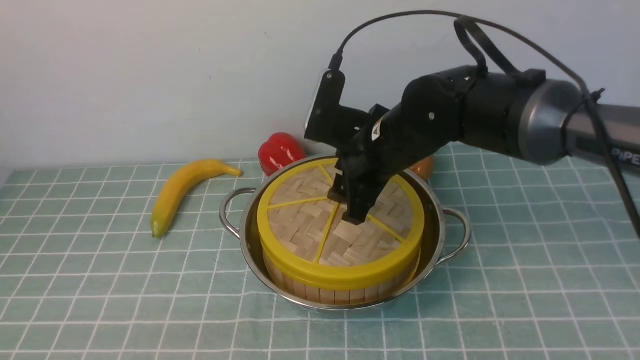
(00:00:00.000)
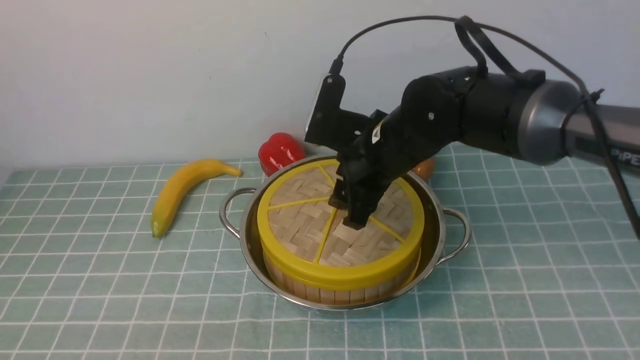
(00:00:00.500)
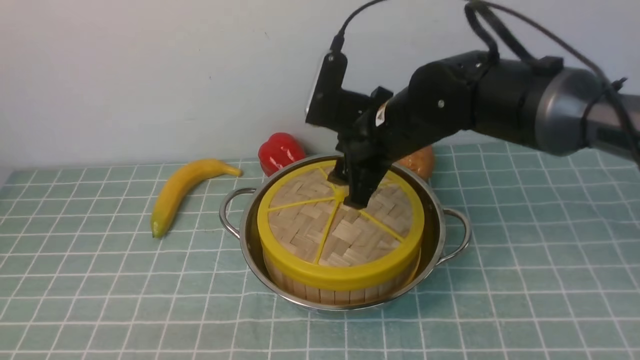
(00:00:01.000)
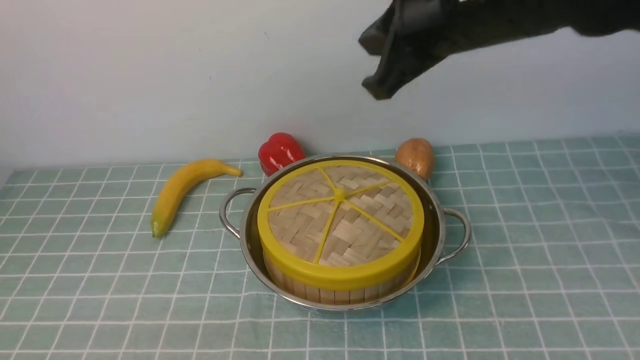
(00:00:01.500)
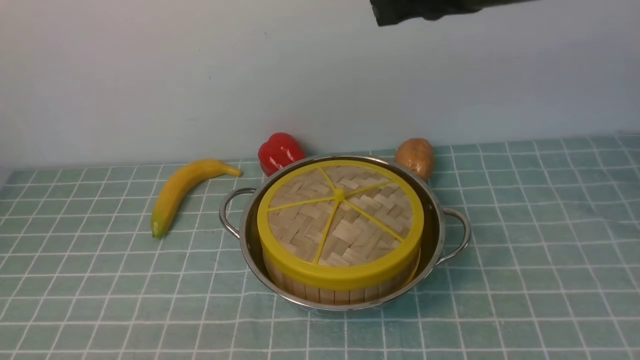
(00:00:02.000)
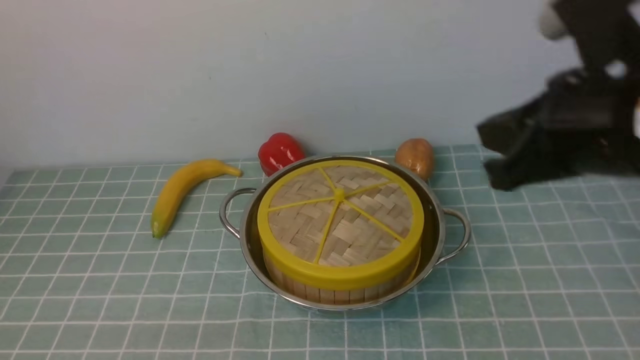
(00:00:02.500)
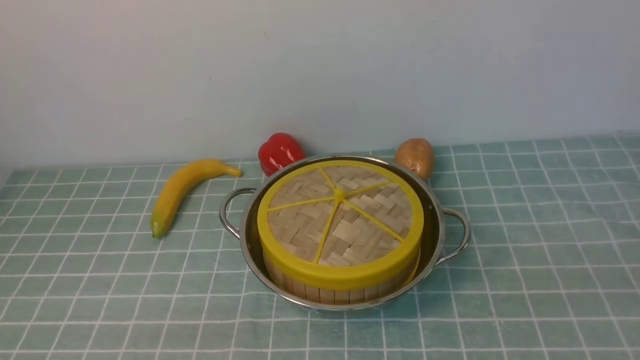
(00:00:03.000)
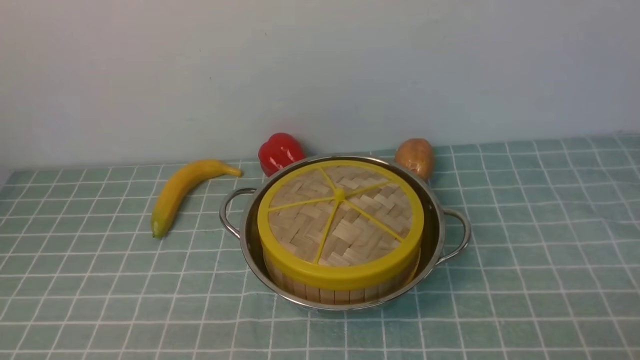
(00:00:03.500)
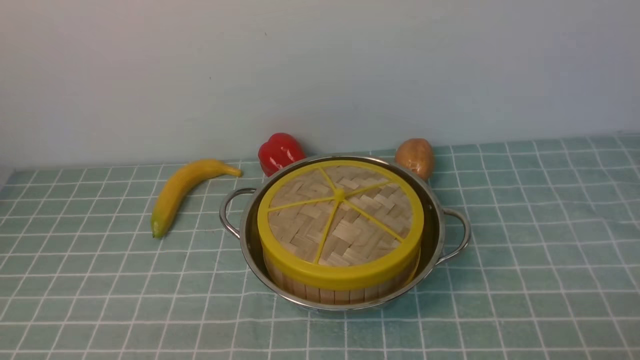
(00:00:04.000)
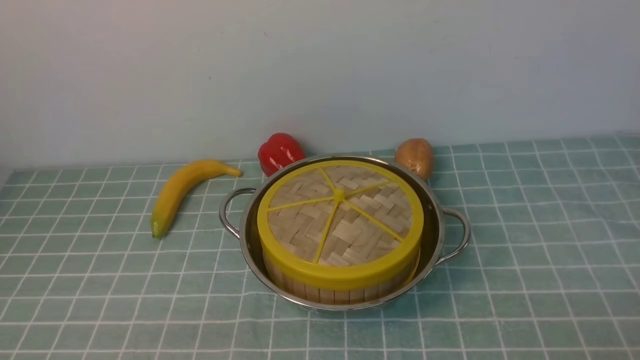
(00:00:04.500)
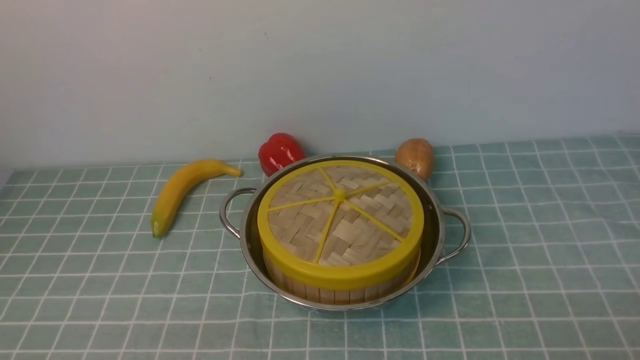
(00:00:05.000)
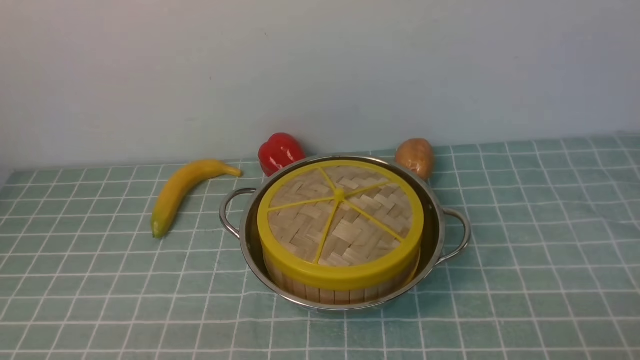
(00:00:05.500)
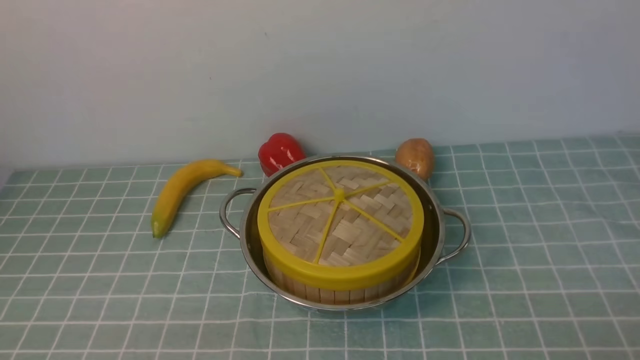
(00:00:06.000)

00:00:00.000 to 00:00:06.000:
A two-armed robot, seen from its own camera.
Task of the whole recording: place the steamer in the pot on the blue tablecloth, and put the lid on the steamer.
00:00:00.000 to 00:00:02.000: The right gripper travels upward and backward by about 20 cm, and closes up.
00:00:02.000 to 00:00:04.000: The right gripper shifts approximately 40 cm downward, backward and to the right, and opens.
00:00:04.000 to 00:00:06.000: Both grippers stay about where they are.

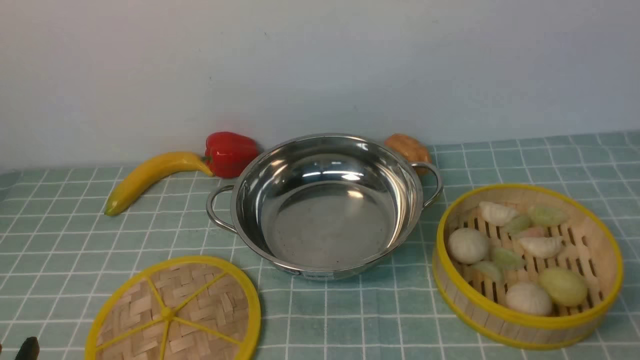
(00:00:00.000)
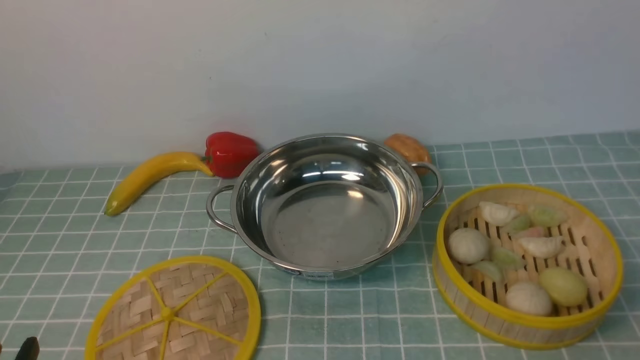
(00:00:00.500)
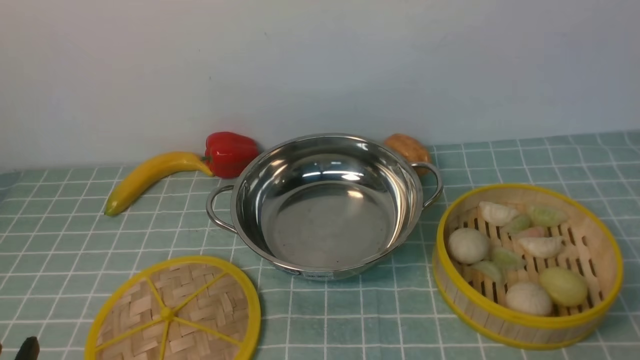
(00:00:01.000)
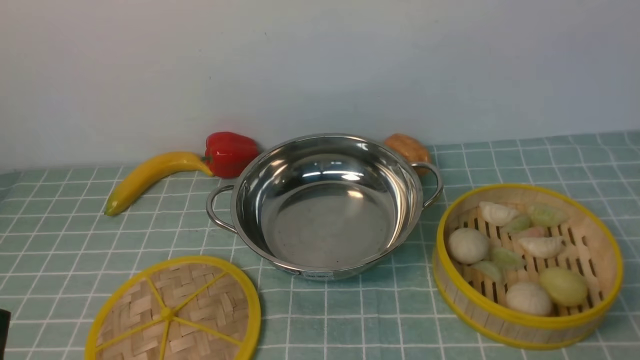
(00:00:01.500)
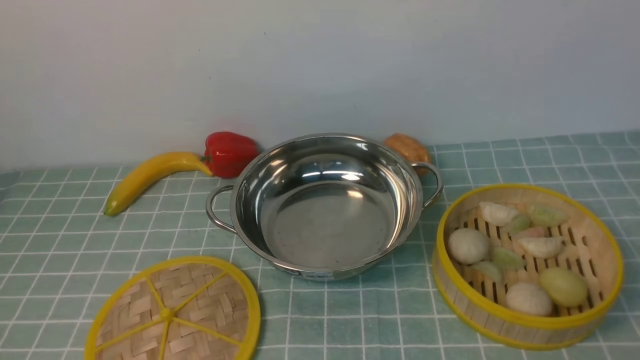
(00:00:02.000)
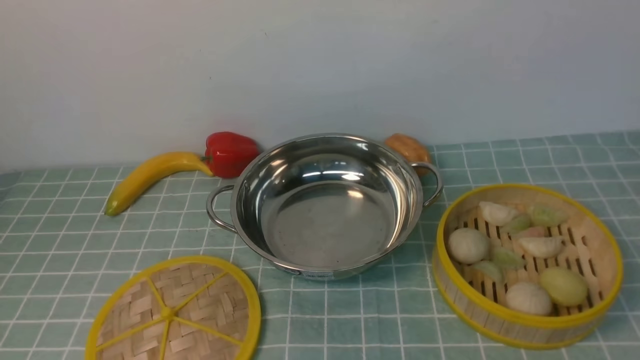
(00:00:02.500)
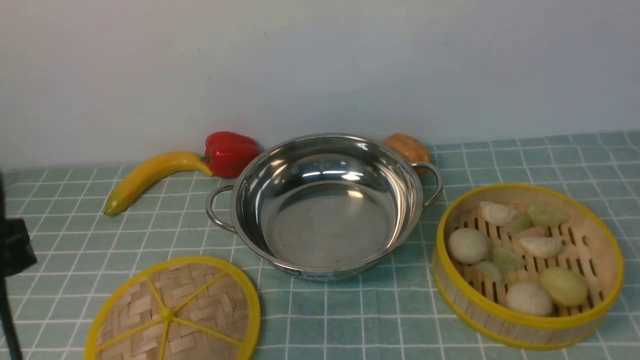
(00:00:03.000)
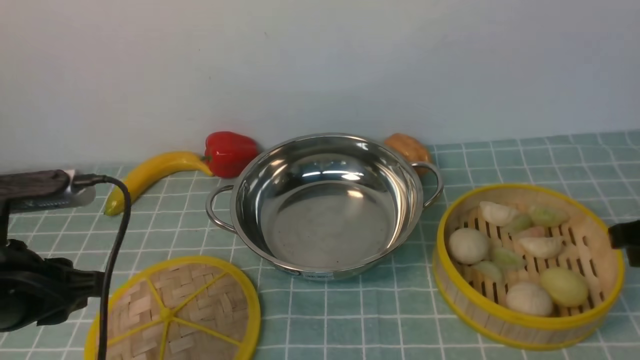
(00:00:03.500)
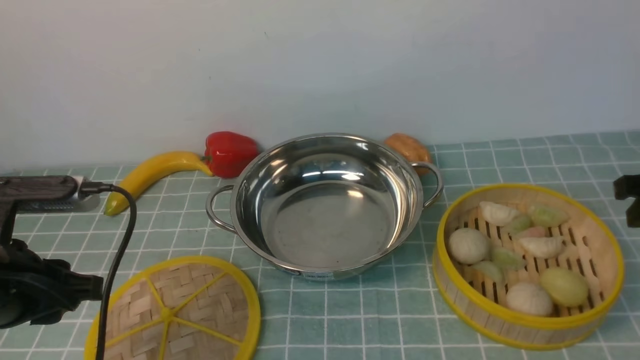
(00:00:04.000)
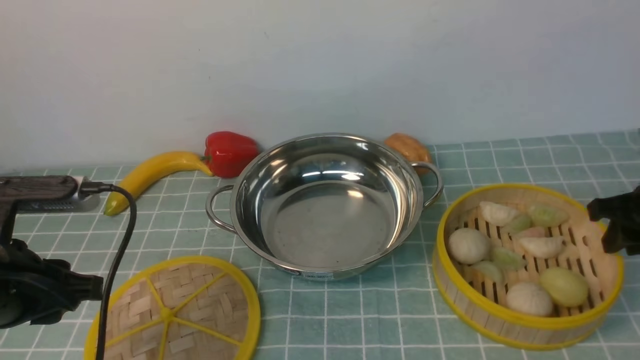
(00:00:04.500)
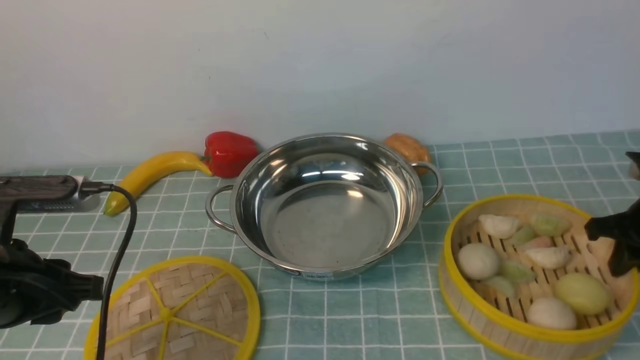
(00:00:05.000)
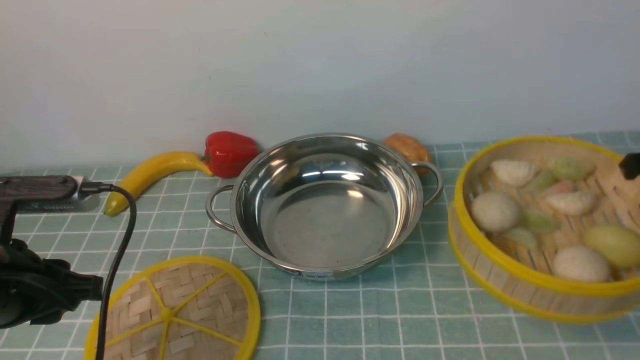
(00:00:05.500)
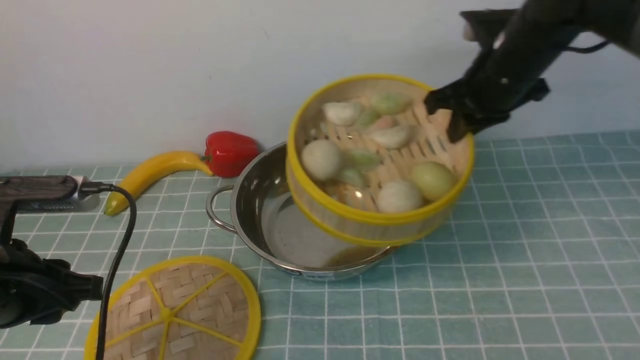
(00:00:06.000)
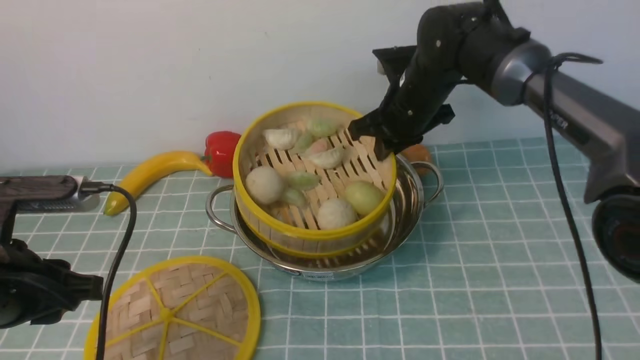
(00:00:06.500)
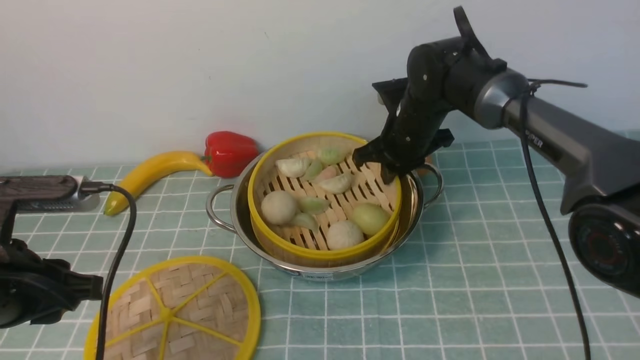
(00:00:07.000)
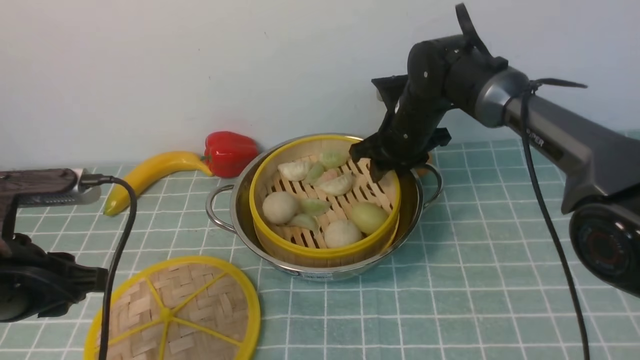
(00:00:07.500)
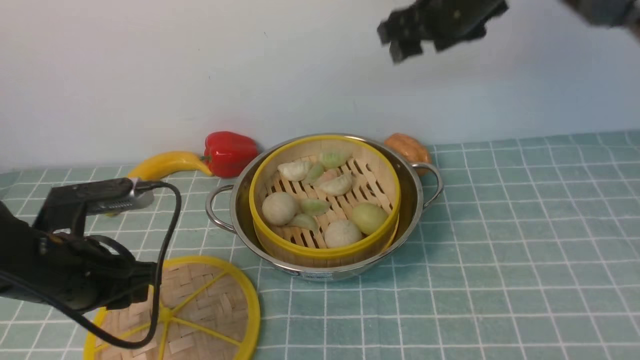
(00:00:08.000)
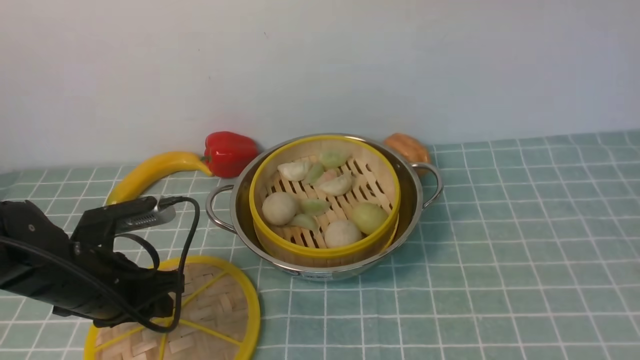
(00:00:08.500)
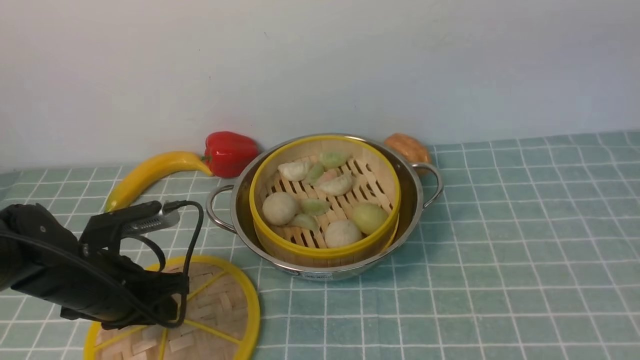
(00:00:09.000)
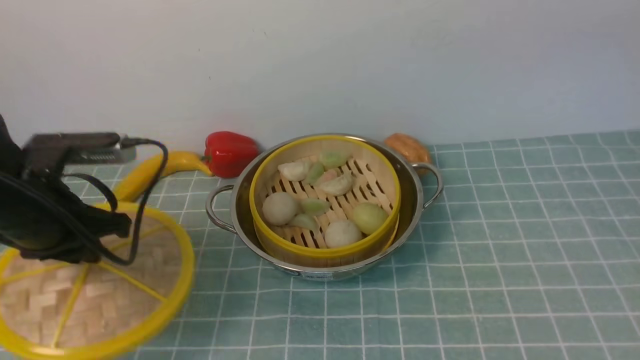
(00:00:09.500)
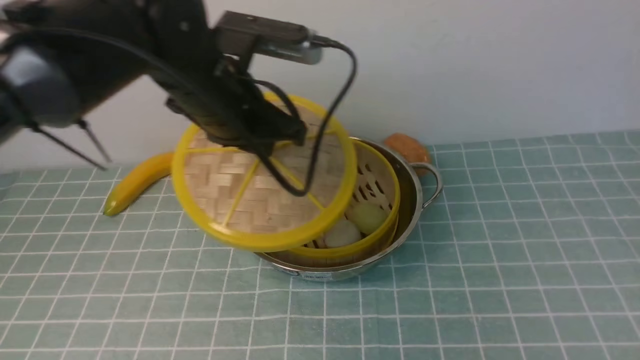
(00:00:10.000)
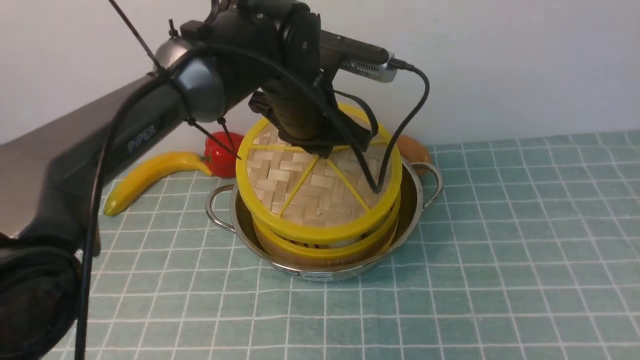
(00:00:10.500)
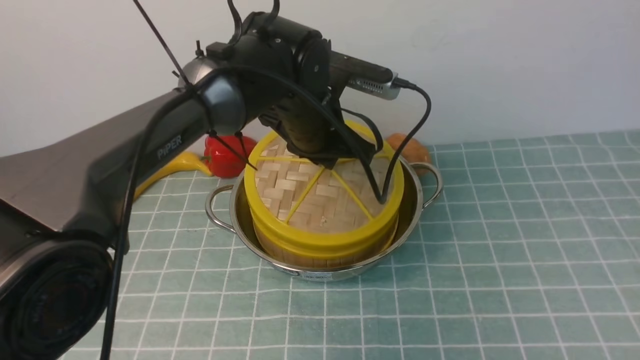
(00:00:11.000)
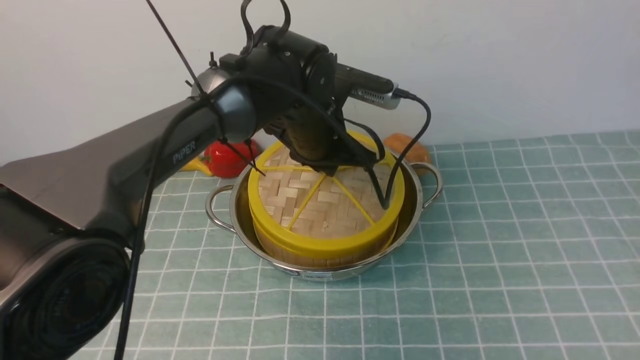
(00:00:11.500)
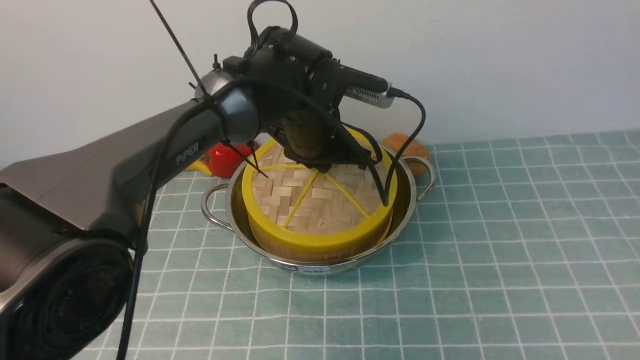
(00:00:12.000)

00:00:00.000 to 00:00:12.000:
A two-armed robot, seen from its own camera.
Task of the whole recording: place the steamer in the pot on the blue tablecloth, and put the lid on the steamer.
Step, 00:00:00.000 to 00:00:05.000: use the right arm to lift the steamer closest to it.
Step, 00:00:05.500 to 00:00:07.500: use the right arm to put the steamer into the iron steamer pot in the middle.
Step, 00:00:08.000 to 00:00:09.500: use the left arm to lift the lid of the steamer.
00:00:02.000 to 00:00:04.000: The left gripper goes about 15 cm forward.
00:00:04.000 to 00:00:06.000: The right gripper is displaced to the left and forward by approximately 20 cm.
00:00:06.000 to 00:00:08.000: The right gripper travels upward by some 10 cm, and opens its fingers; the left gripper travels downward by approximately 5 cm.
00:00:08.000 to 00:00:10.000: The left gripper moves to the right, forward and upward, approximately 20 cm. The right gripper heads backward, upward and to the right, covering roughly 40 cm.
00:00:10.000 to 00:00:12.000: The left gripper travels downward, to the right and forward by about 15 cm.

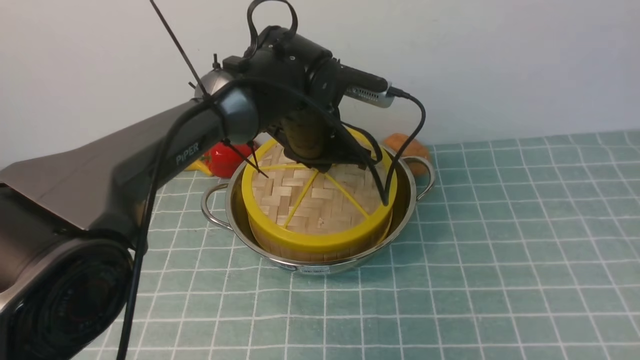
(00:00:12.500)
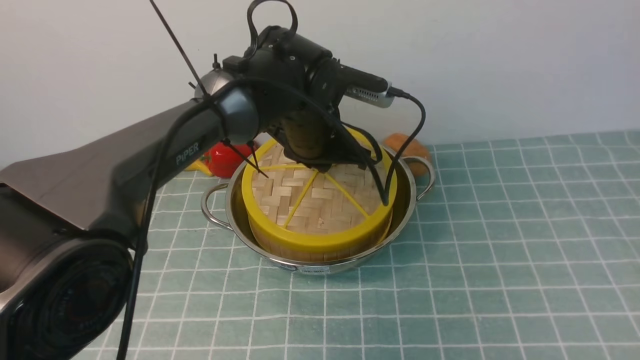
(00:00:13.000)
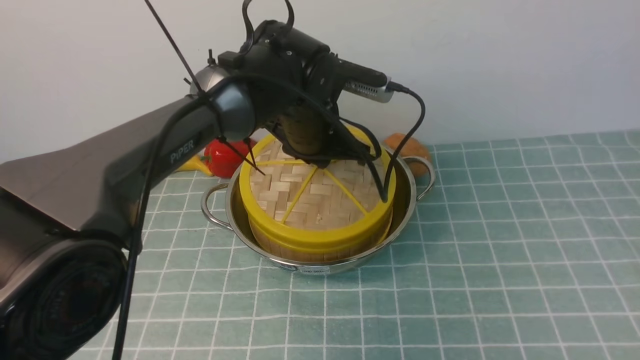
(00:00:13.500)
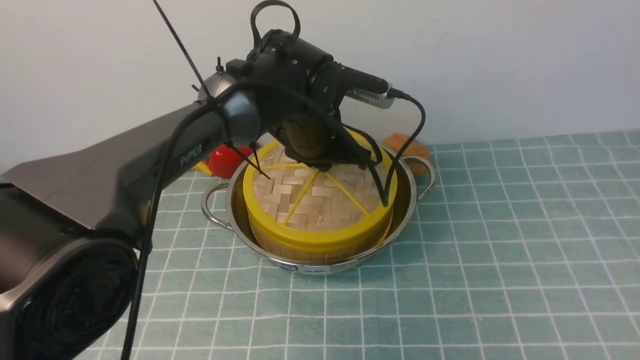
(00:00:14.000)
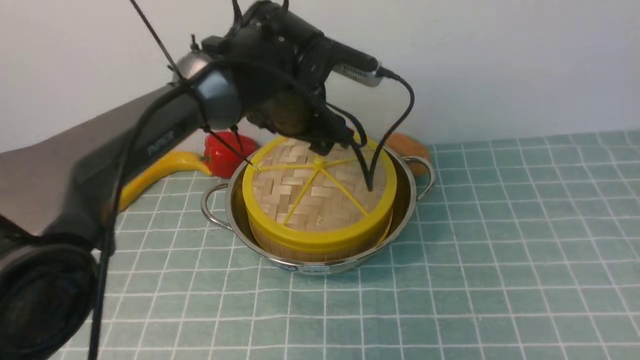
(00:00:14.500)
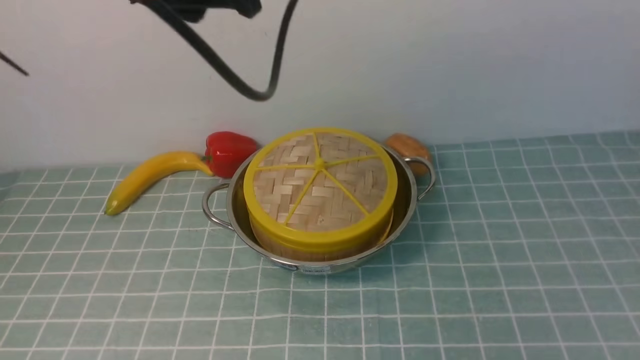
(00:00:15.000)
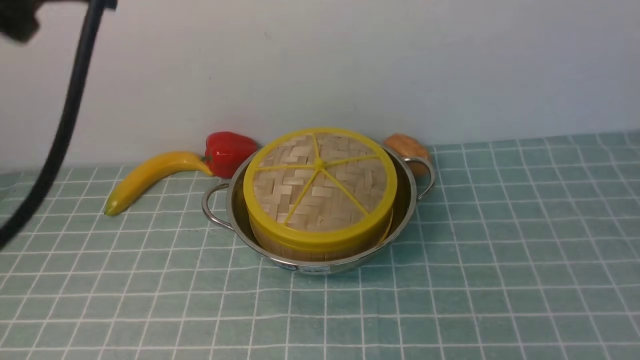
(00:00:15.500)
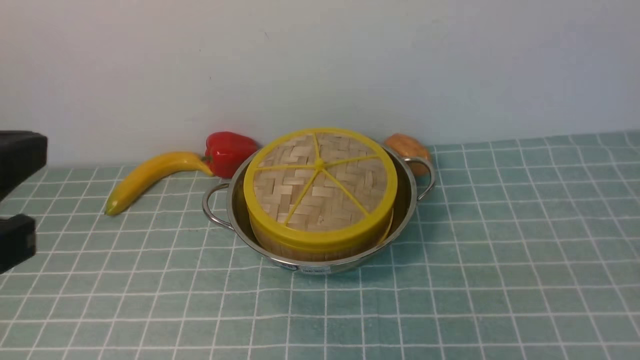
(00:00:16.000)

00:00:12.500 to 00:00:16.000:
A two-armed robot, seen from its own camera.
Task of the whole recording: place the steamer in the pot on the blue tablecloth, and put the lid on the steamer.
Step, 00:00:12.500 to 00:00:14.500: use the left arm to place the steamer lid on the steamer.
00:00:12.500 to 00:00:14.500: The left gripper travels upward by approximately 5 cm, and opens up.
00:00:14.500 to 00:00:16.000: The left gripper goes some 35 cm backward and to the left, and closes up, while the right gripper moves downward, some 20 cm, and closes up.
